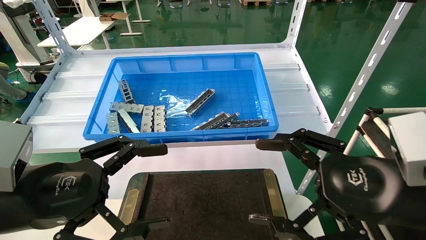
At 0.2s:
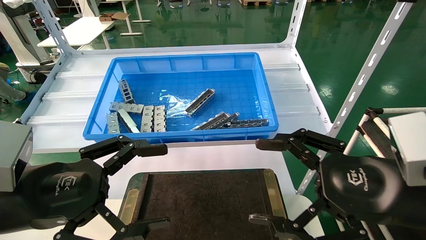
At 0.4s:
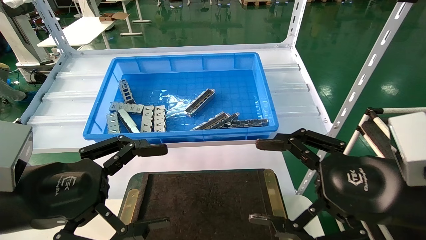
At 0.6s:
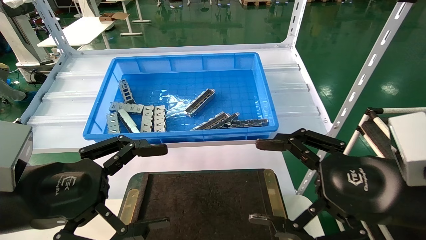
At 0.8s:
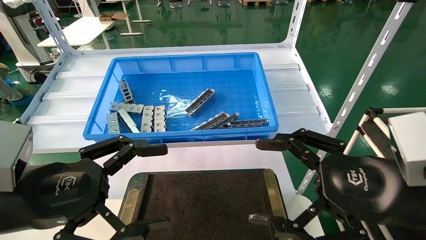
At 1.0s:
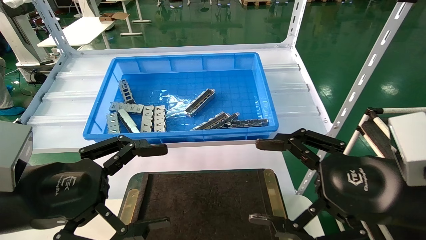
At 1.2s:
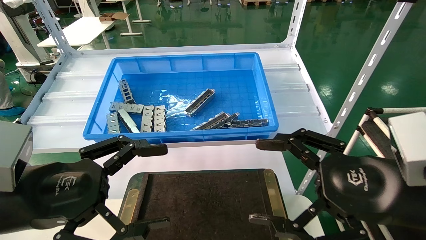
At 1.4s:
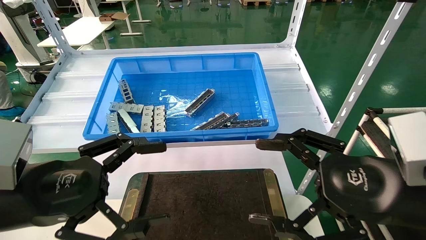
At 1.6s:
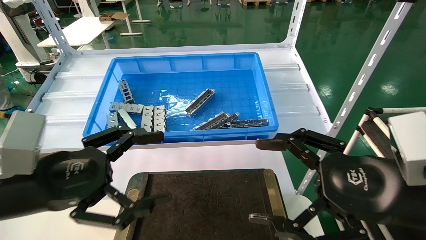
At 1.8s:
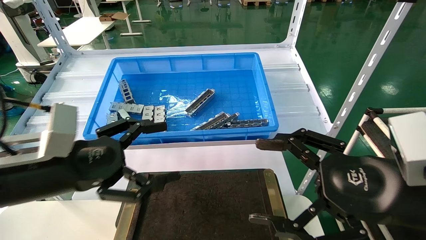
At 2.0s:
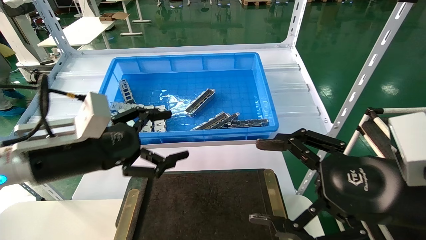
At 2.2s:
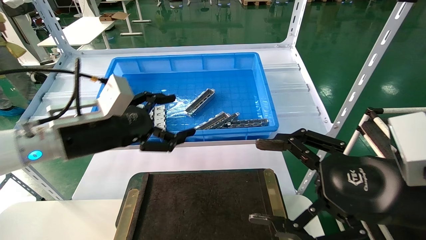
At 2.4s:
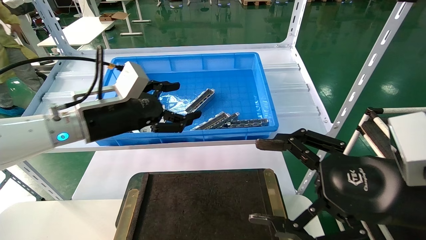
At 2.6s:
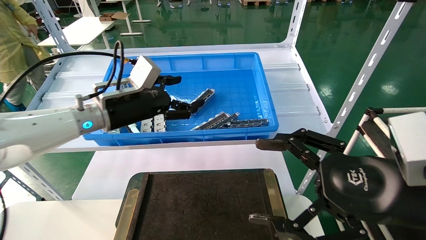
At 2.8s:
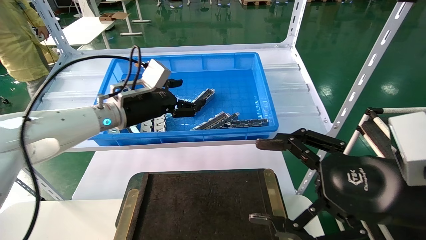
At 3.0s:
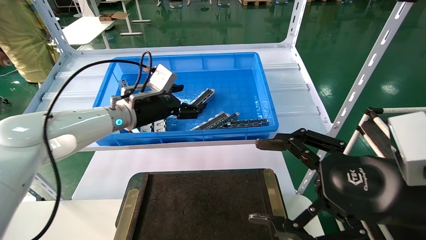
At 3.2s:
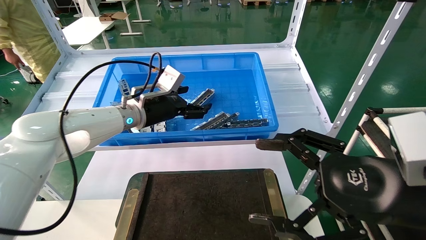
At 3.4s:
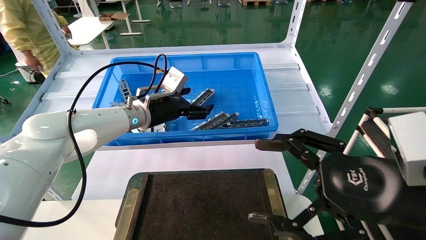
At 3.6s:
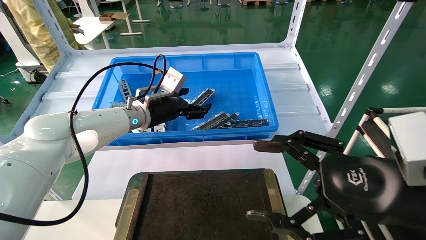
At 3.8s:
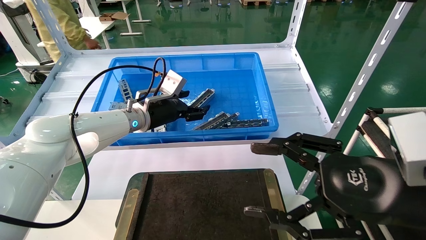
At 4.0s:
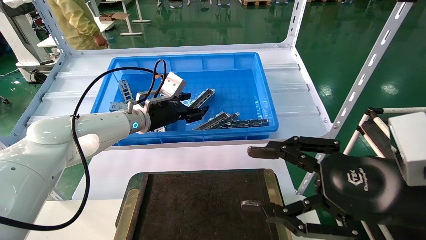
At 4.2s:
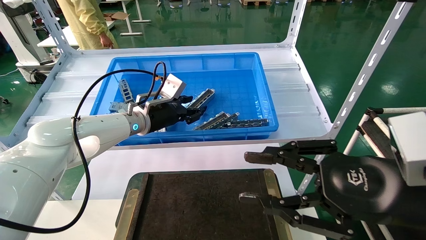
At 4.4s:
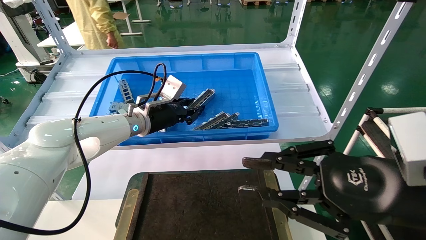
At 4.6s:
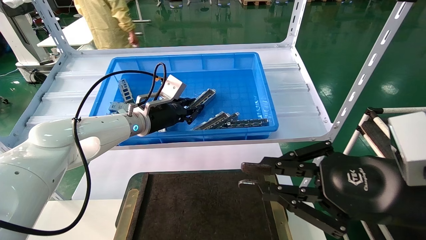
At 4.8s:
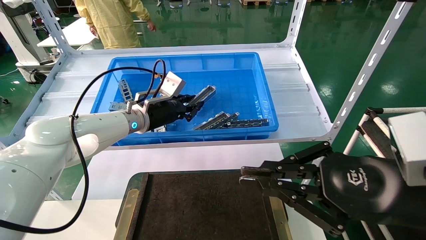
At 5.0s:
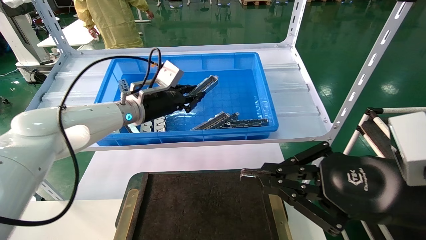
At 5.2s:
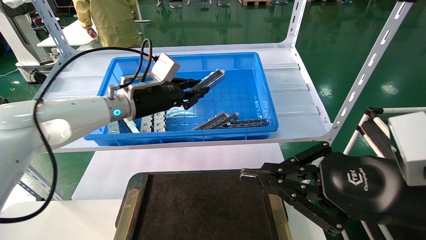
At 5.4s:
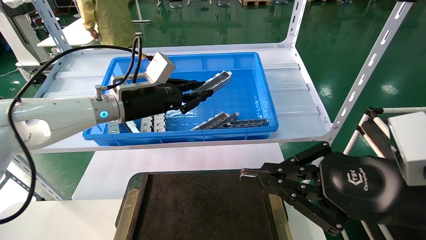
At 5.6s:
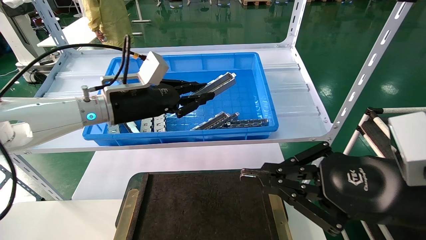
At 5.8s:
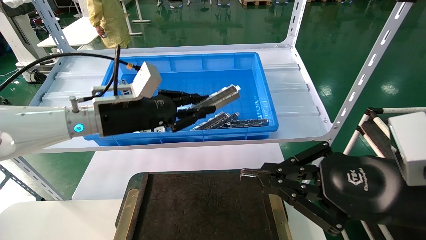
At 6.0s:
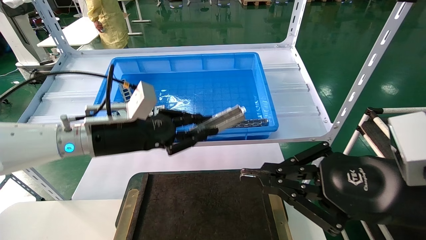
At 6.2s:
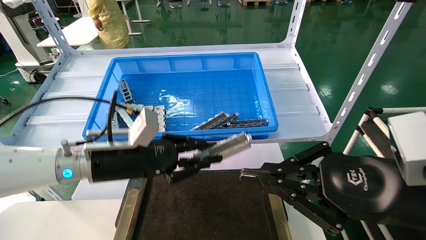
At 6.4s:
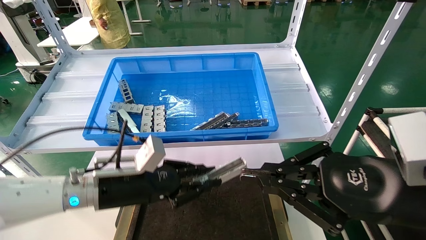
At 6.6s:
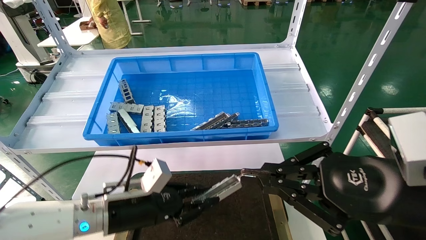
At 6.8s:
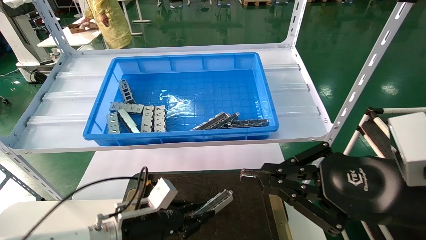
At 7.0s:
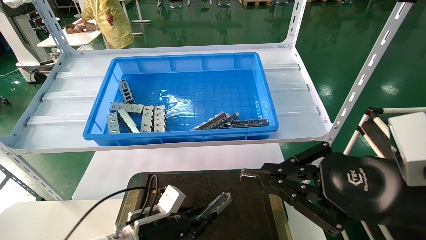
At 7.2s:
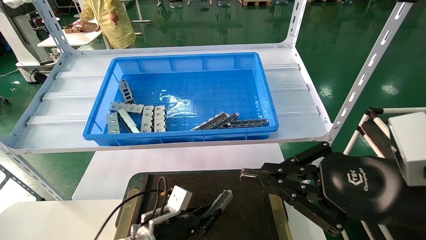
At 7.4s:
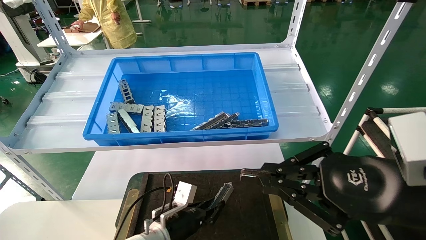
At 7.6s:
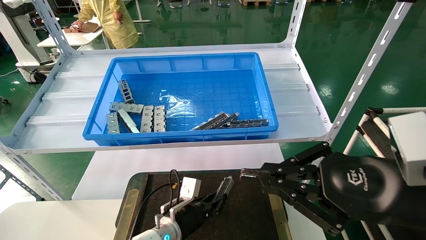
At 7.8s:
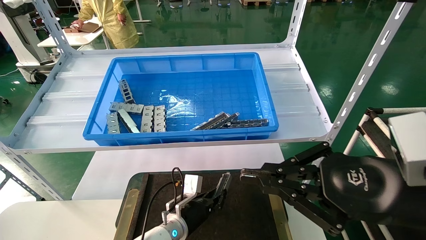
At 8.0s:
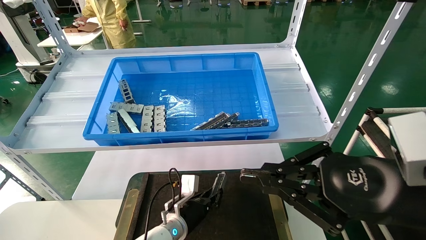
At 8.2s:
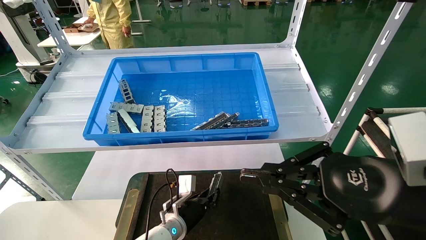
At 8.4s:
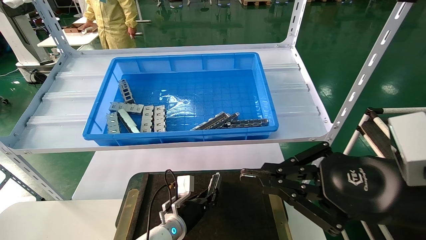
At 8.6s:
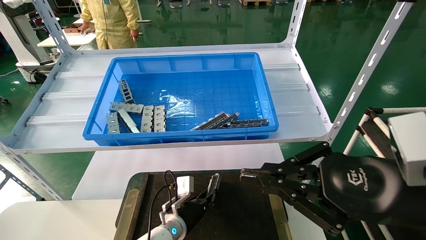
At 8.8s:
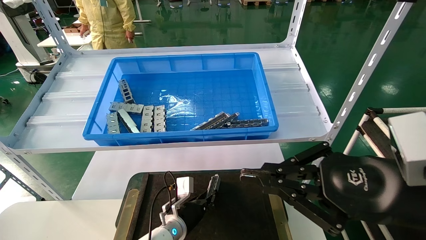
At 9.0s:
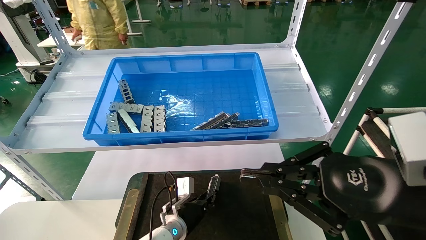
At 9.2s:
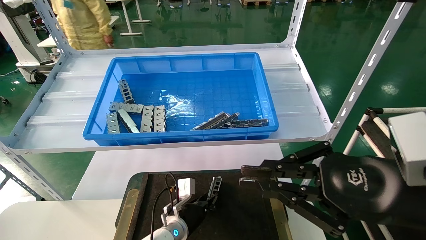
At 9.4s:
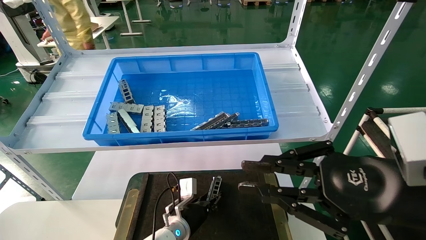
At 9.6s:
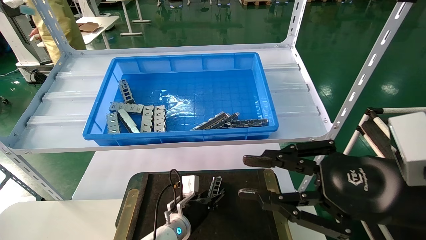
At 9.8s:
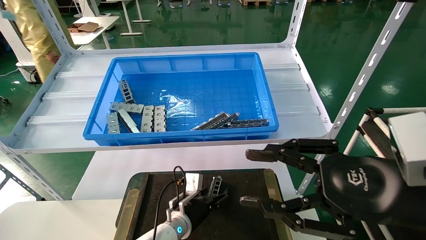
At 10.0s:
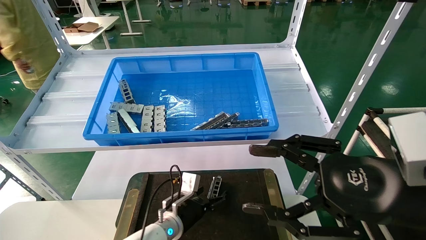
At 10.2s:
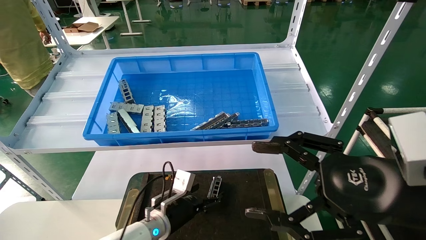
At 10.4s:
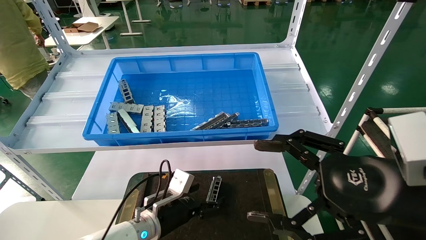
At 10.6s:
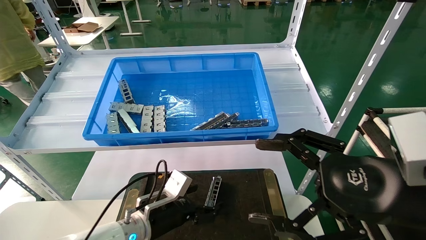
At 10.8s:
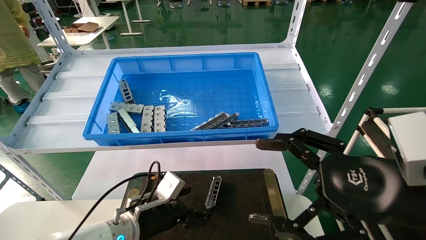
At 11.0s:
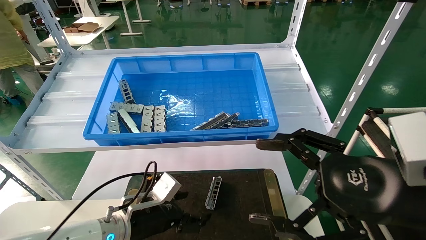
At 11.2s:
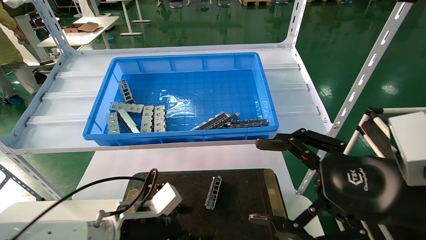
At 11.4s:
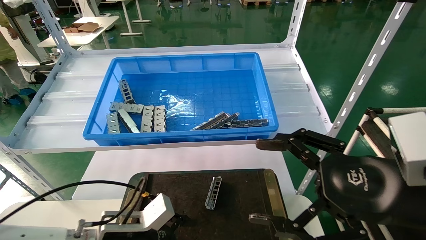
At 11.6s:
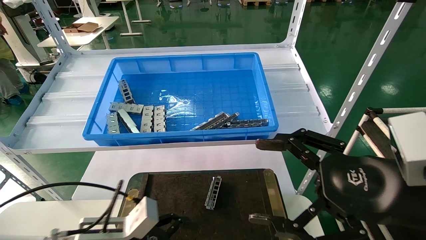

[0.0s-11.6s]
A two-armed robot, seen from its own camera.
Task of the whole recording: Grasp the part with one hand and place it on the black container.
Step, 1.6s to 4.4s: Pick up the front USB bracket from the feeding area.
Step, 4.6s to 9.0s: Place the front USB bracket into the box.
0.0s to 1.4s: Neither gripper changes place.
1.4s to 2.8s: The left gripper shifts about 25 cm forward.
2.8s to 4.4s: The left gripper heads forward, covering some 5 cm, and closes its fingers. Meanwhile the right gripper closes its fingers.
4.4s to 5.8s: The right gripper closes up. The left gripper goes some 10 cm backward.
5.8s to 7.2s: The left gripper heads downward, covering some 30 cm.
7.2s to 8.8s: The left gripper heads forward, covering approximately 5 cm.
8.8s to 10.2s: The right gripper opens up. The left gripper heads upward, covering some 5 cm, and opens.
10.2s to 11.6s: The left gripper is displaced backward, to the left and upward by roughly 20 cm.

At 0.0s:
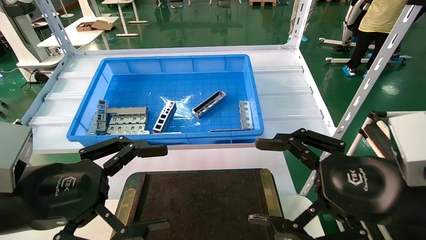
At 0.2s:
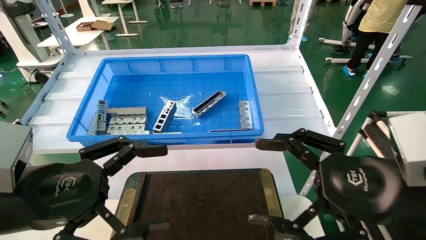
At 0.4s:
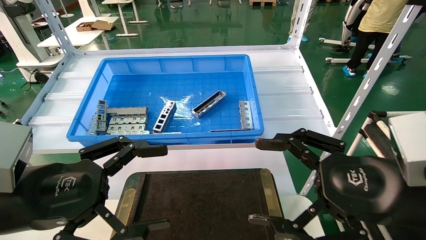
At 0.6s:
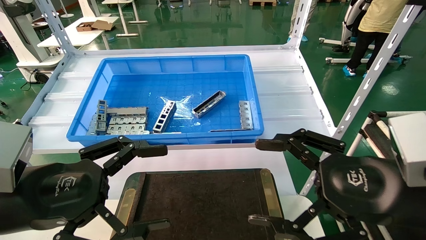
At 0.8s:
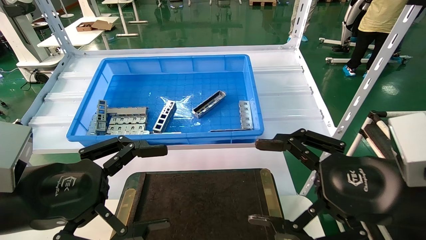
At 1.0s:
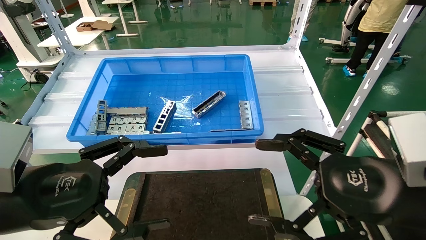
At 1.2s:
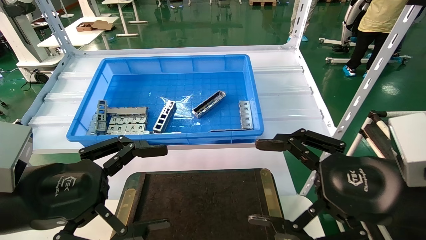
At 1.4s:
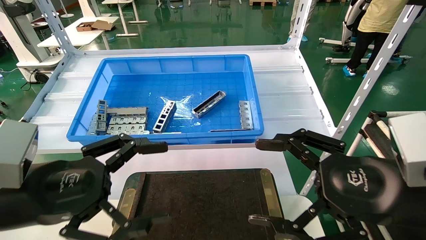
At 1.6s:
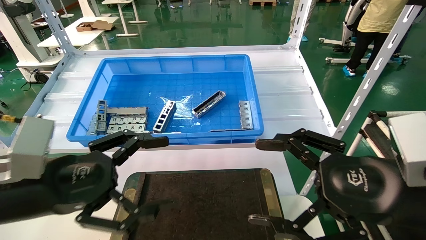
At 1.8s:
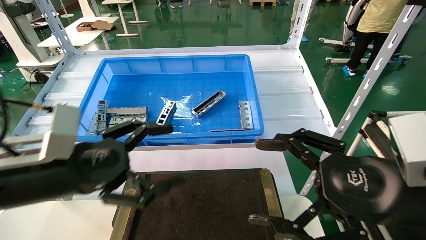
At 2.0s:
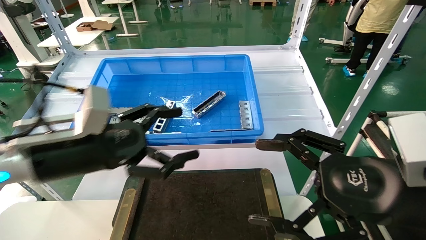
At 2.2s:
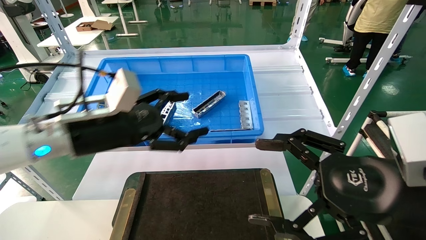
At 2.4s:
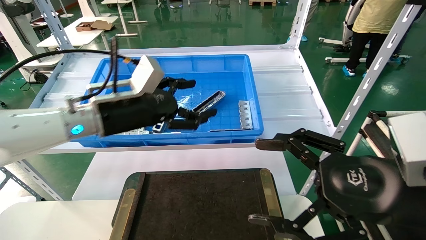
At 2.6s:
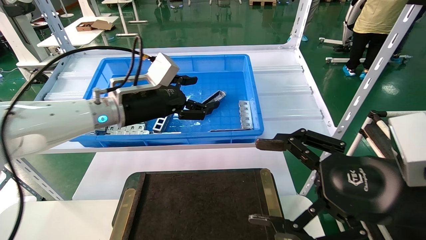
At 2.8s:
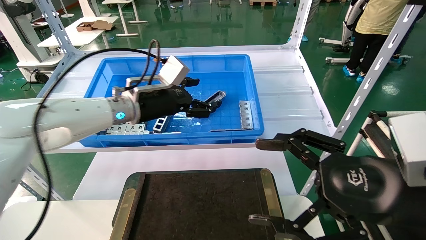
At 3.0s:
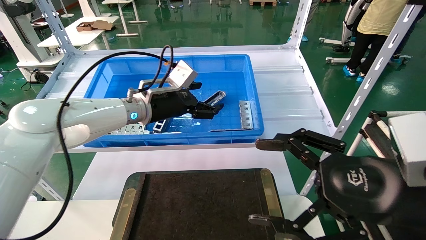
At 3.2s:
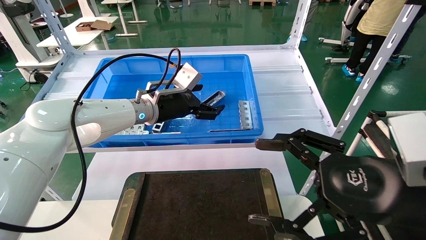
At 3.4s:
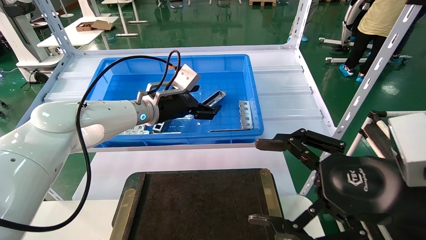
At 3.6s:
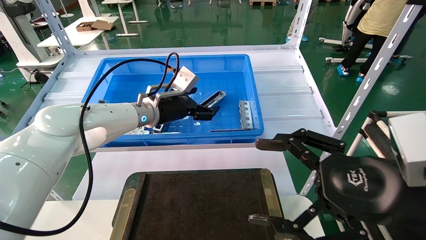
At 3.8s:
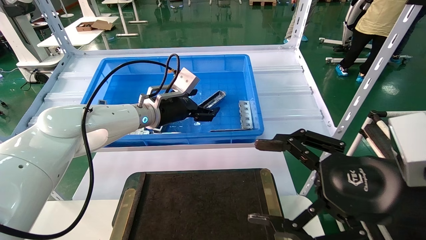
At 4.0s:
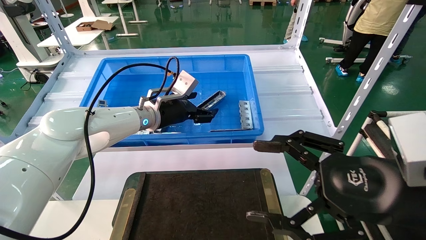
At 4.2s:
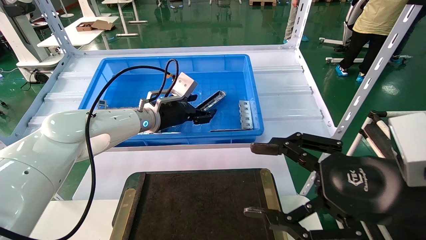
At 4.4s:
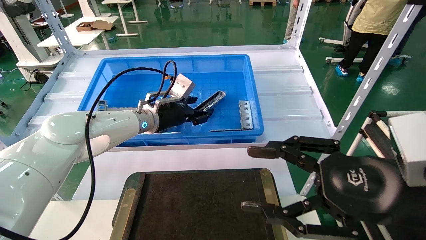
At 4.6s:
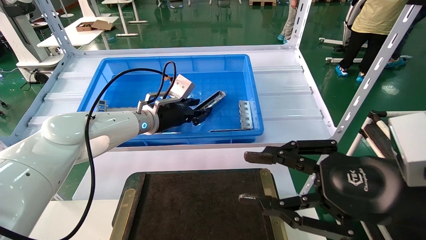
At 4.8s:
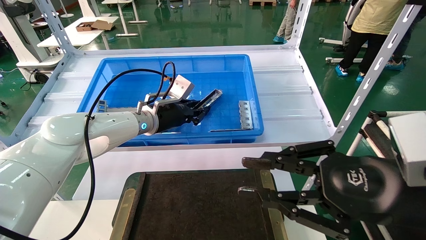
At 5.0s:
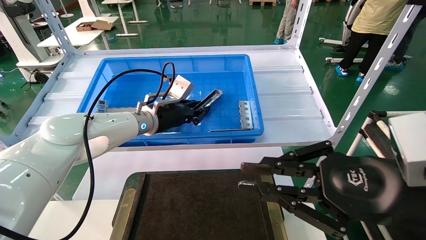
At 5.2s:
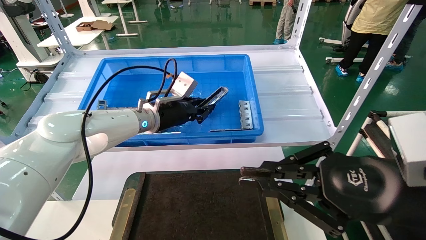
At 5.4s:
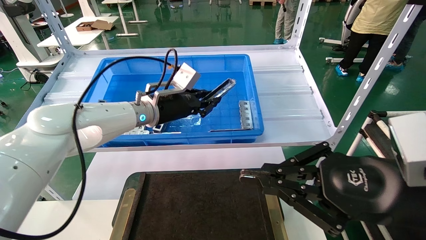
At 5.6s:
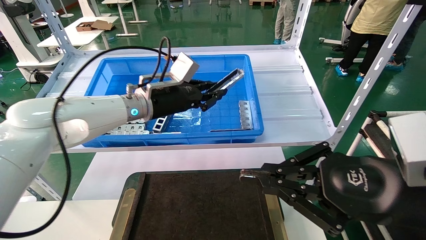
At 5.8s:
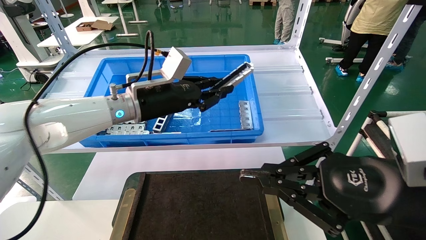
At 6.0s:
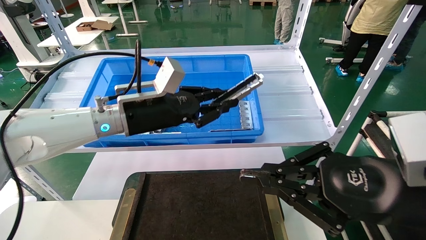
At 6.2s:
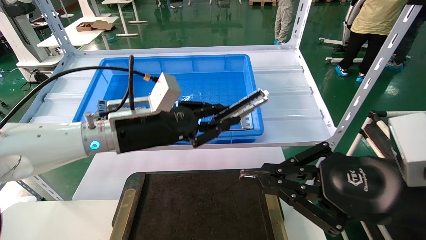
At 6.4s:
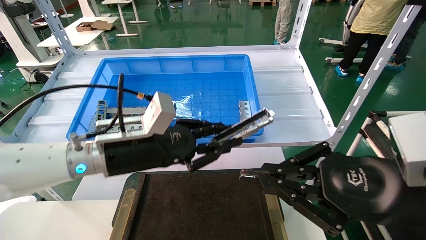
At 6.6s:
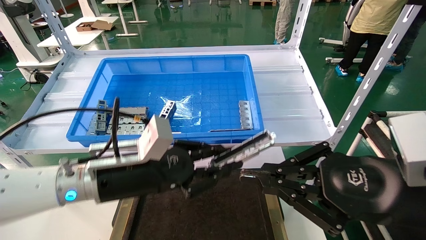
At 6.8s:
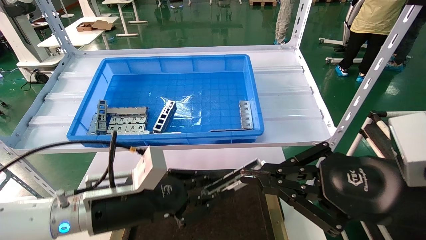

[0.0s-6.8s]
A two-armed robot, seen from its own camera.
Task of the whole recording: Grasp the part with one hand and place it on the black container.
Step, 1.8s to 5.8s: Pick up the front USB bracket from the feeding area.
0.0s to 1.4s: The two grippers keep their place.
1.4s to 2.8s: The left gripper moves forward and to the right, about 25 cm.
2.8s to 4.0s: The left gripper changes place by approximately 5 cm.
4.0s to 5.4s: The left gripper closes, while the right gripper closes.
5.4s to 6.8s: The left gripper travels backward and downward by approximately 25 cm.
